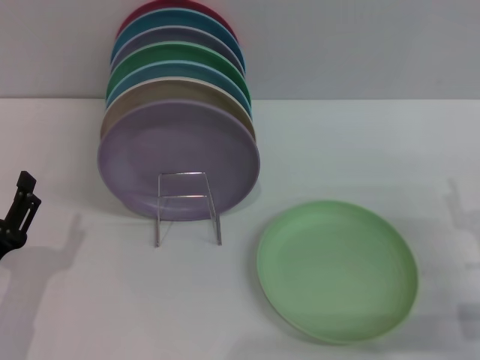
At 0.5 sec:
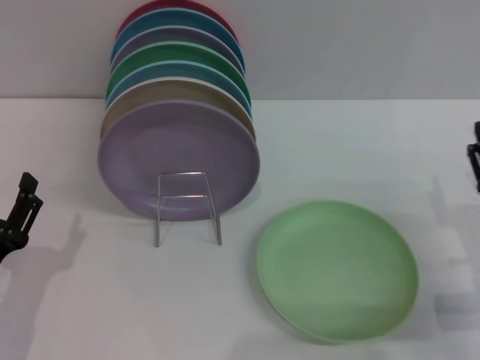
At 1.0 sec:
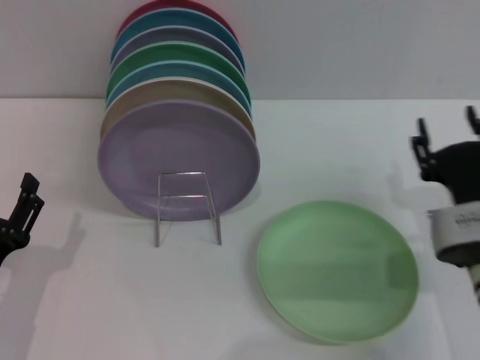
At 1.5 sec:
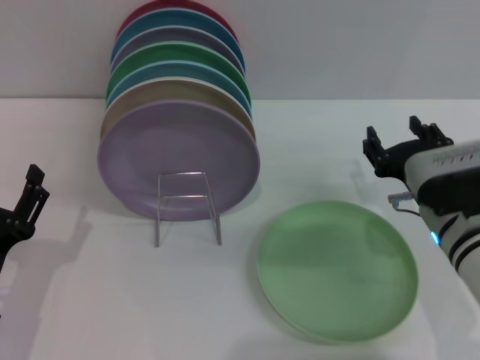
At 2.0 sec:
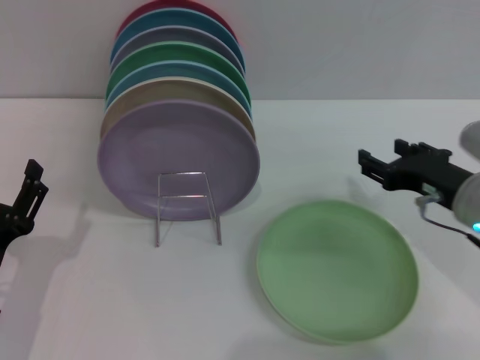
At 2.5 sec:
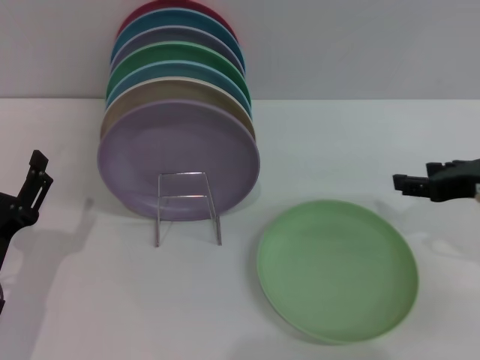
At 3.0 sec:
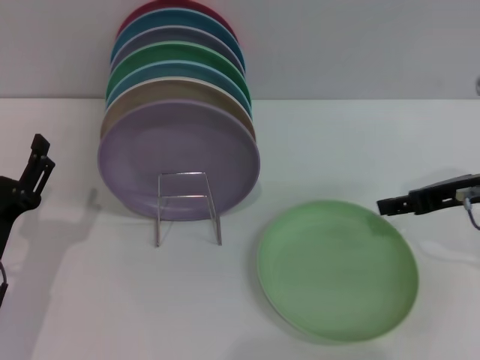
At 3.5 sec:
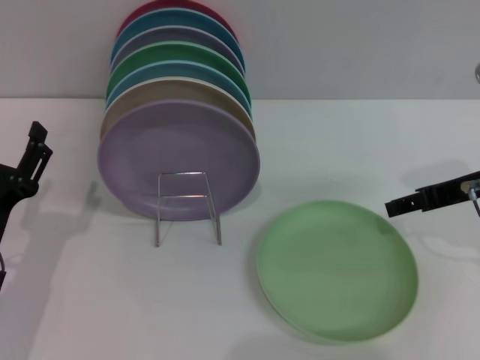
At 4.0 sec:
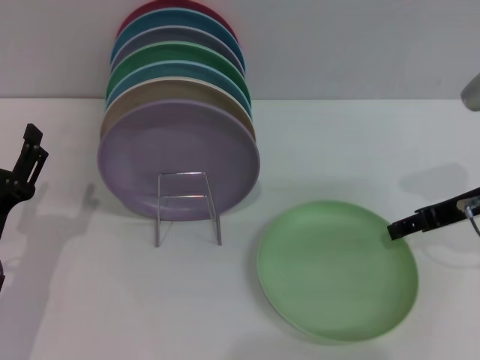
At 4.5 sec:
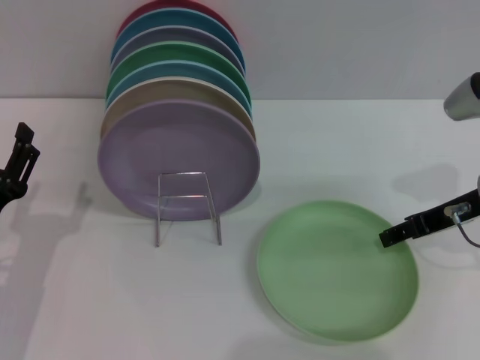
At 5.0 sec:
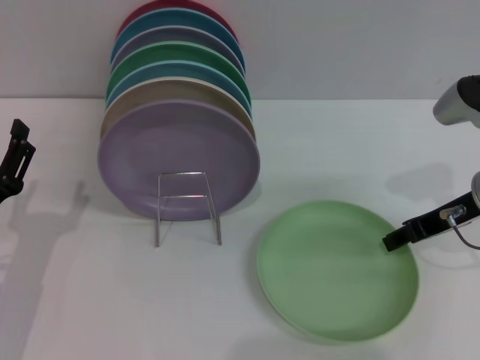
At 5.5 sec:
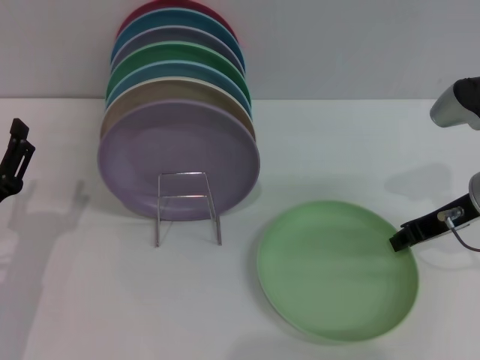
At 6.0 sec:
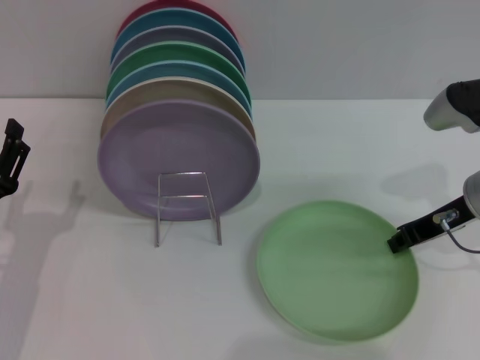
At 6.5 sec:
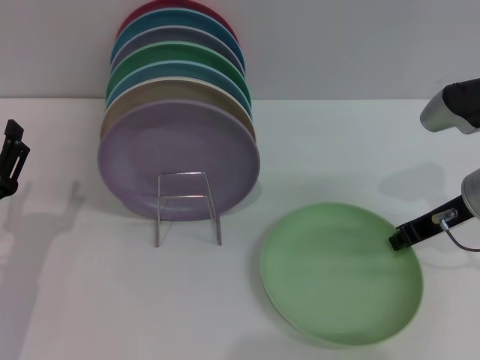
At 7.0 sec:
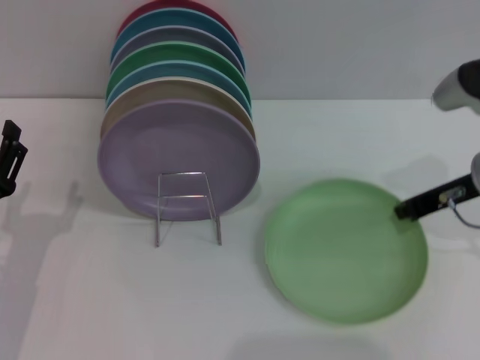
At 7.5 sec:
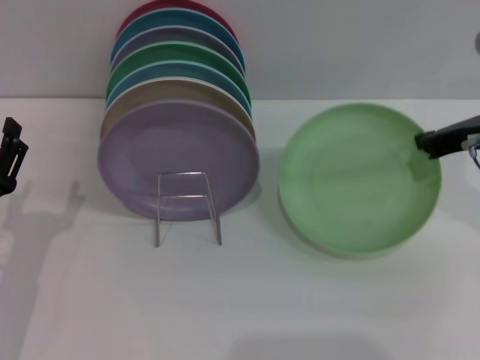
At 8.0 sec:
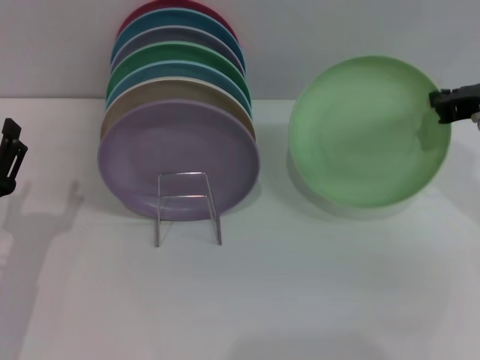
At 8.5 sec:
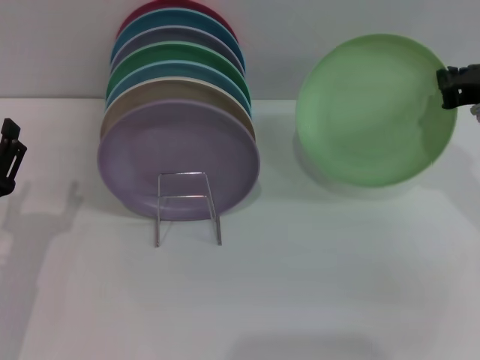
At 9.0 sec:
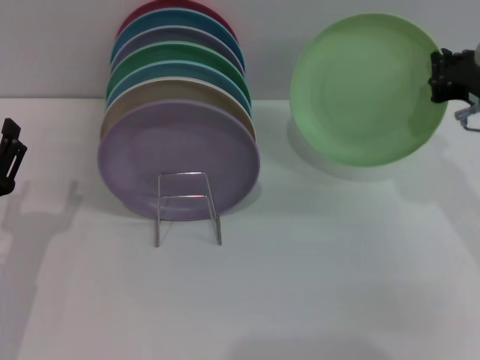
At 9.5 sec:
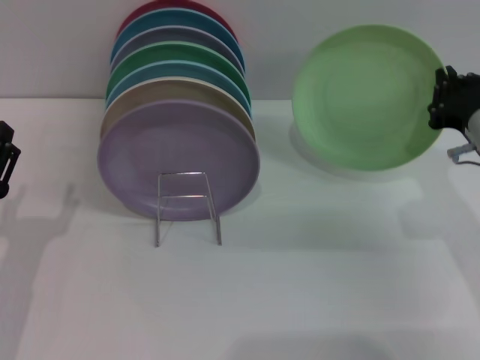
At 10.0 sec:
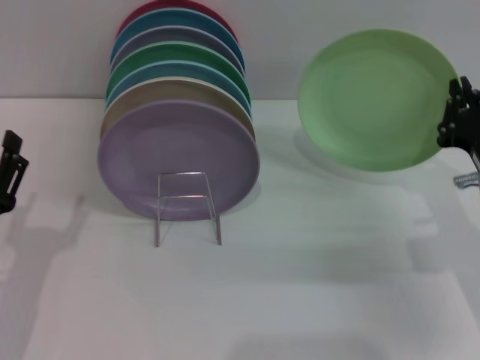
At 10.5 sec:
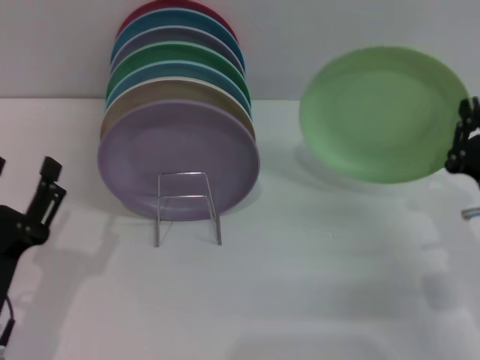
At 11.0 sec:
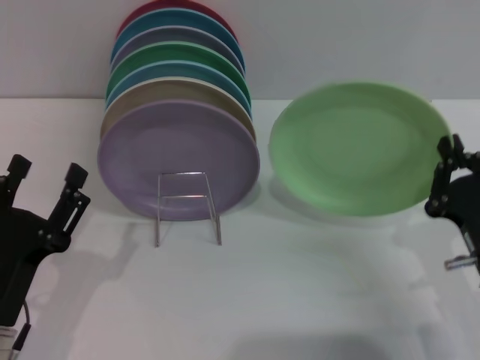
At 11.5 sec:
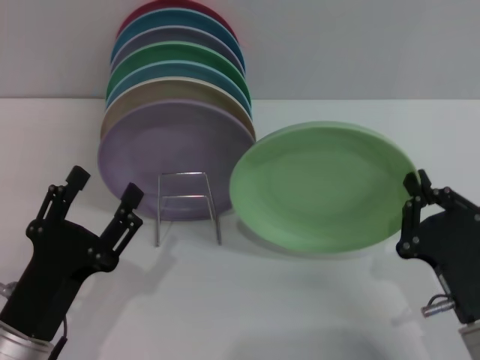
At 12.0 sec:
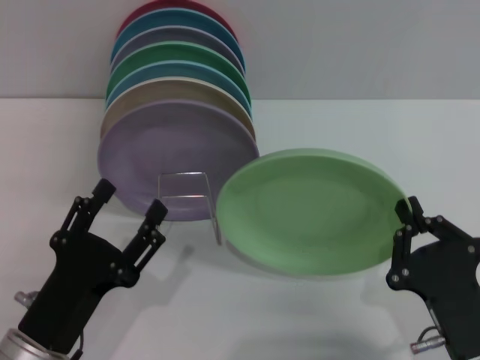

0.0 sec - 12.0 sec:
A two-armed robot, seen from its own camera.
Task of the whole recording: Grip the plate with one hand, pass it to the other, then set it on the shelf.
Step, 0.0 sec - 8.0 sec: Pick up the plate with the right gripper.
0.0 sec - 2.0 sec: The right gripper is displaced forward, upward and to the left by roughly 10 cm.
2.0 sec - 4.0 sec: The right gripper changes place by approximately 5 cm.
4.0 sec - 6.0 sec: The right gripper closes.
6.0 sec - 8.0 sec: The right gripper moves upward, approximately 5 cm.
8.0 sec - 10.0 sec: The right gripper shifts roughly 15 cm downward and backward.
10.0 sec - 12.0 sec: The left gripper goes about 5 cm to the right. The right gripper heads backward and to the left, covering about 15 cm.

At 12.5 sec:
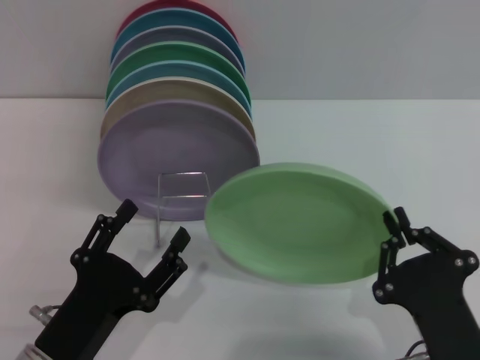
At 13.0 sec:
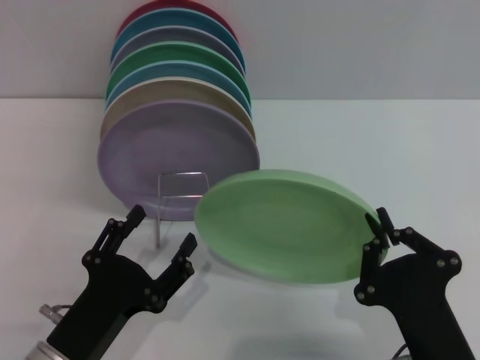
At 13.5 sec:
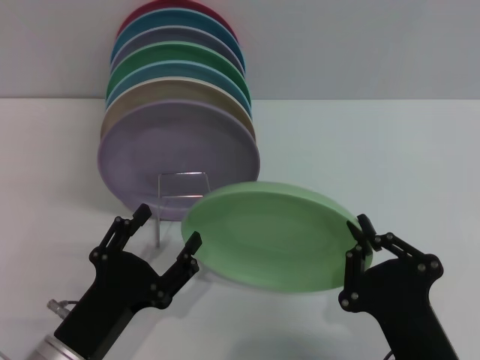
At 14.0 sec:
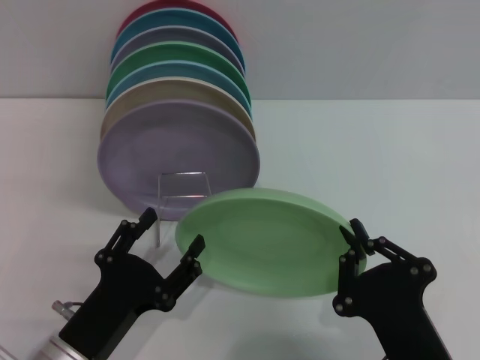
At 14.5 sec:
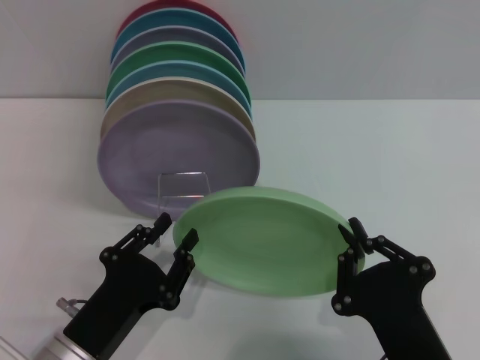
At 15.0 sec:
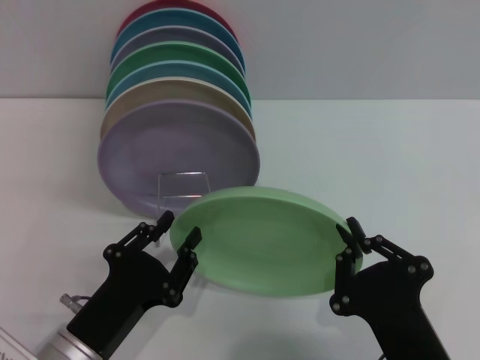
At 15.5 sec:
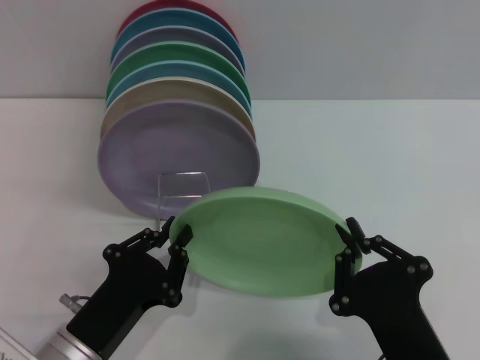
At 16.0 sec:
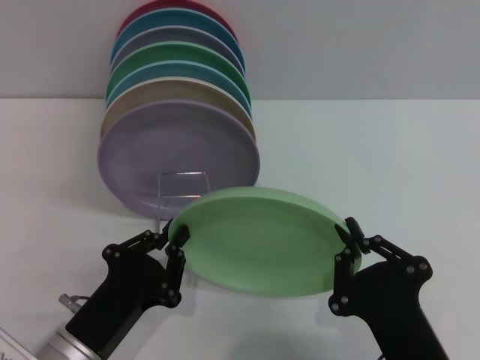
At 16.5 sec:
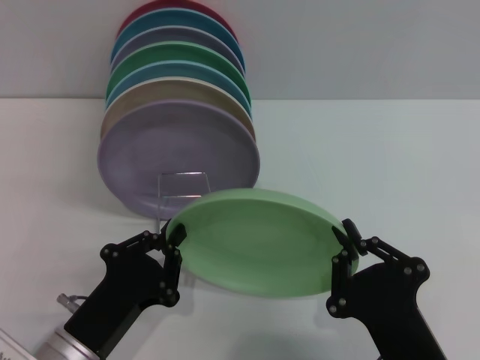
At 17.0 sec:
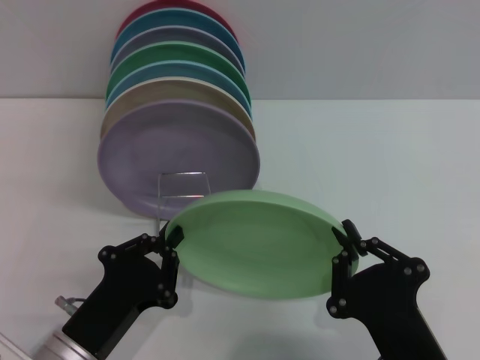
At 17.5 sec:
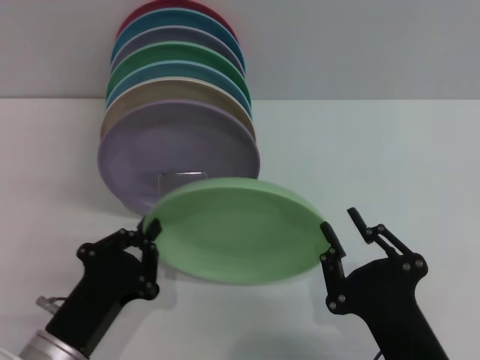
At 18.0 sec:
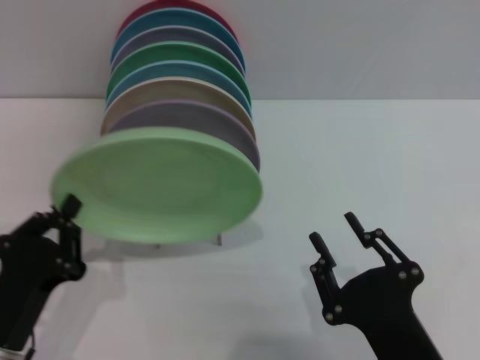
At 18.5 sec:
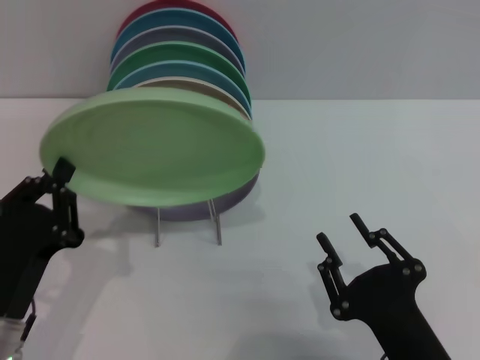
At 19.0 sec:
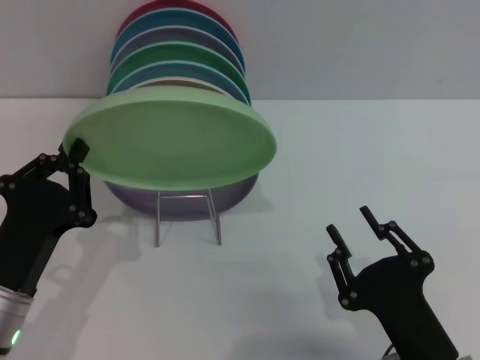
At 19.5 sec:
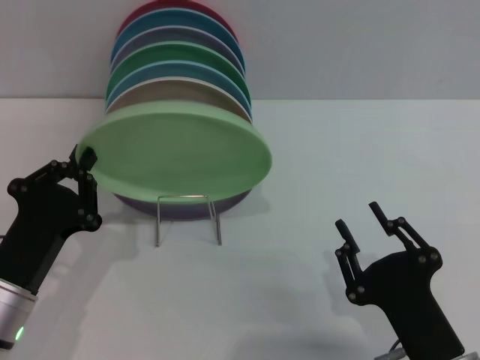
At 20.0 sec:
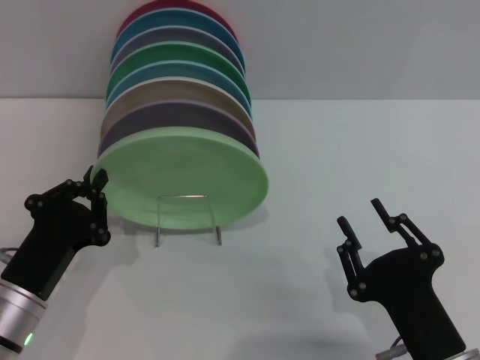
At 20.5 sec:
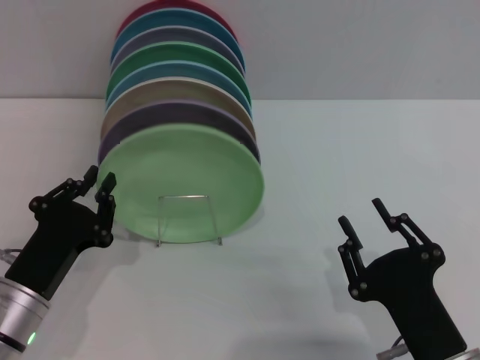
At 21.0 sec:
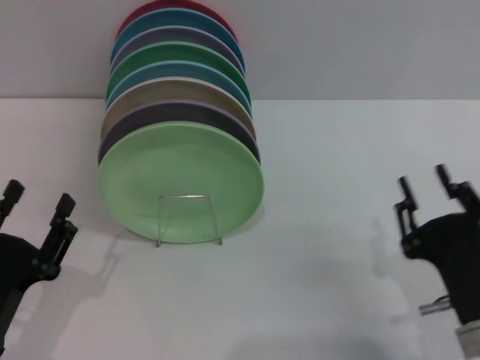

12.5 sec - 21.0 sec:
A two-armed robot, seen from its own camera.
Task of the whole recording: Grip the plate with one hand, pass it to the other, then set it on the shelf.
Step, 12.5 sec - 17.5 sec: Pass the plate from the right gripper to the left gripper.
Step, 18.0 sec - 20.5 sec: Place the plate on the shelf with the left gripper.
12.5 sec - 14.5 sec: The left gripper closes up.
14.5 sec - 16.5 sec: The left gripper closes up.
16.5 sec - 19.0 sec: The right gripper opens. Meanwhile the left gripper ends up roughly 5 cm from where it was.
19.0 sec - 21.0 sec: The left gripper shifts by roughly 5 cm, and opens its fingers.

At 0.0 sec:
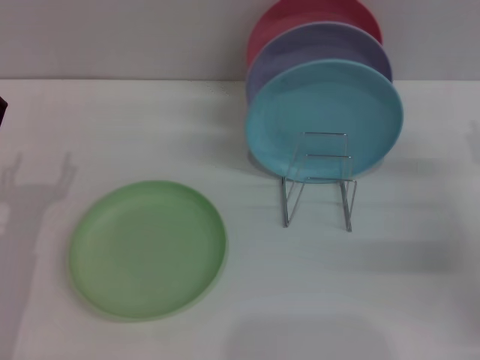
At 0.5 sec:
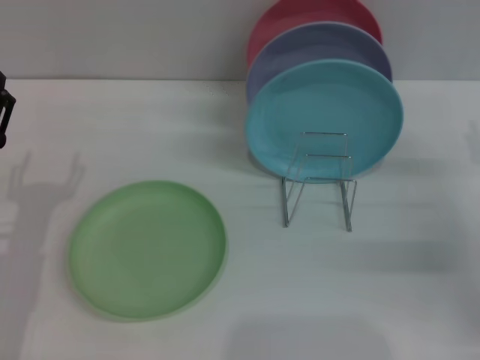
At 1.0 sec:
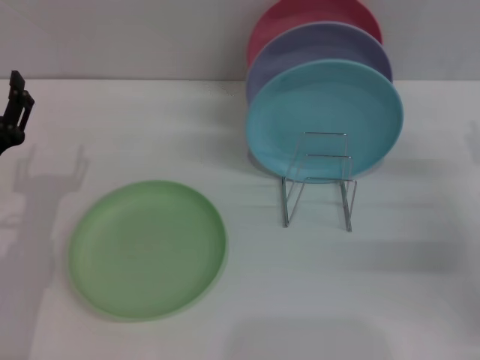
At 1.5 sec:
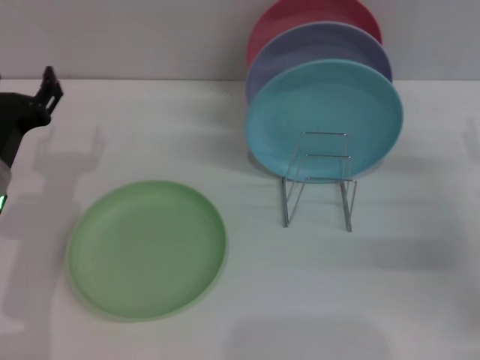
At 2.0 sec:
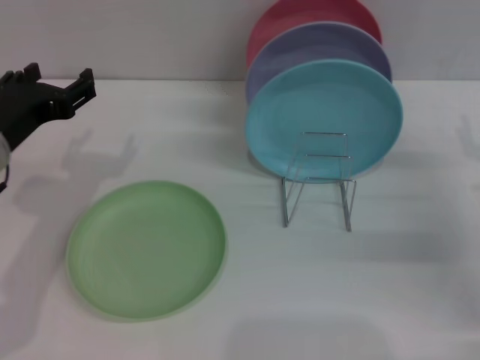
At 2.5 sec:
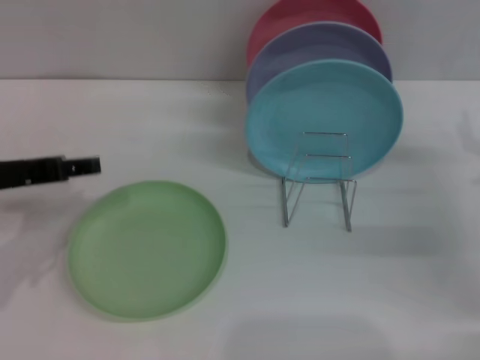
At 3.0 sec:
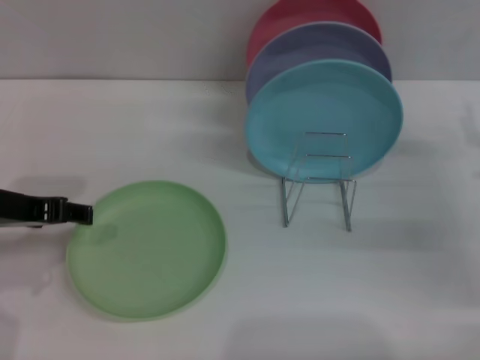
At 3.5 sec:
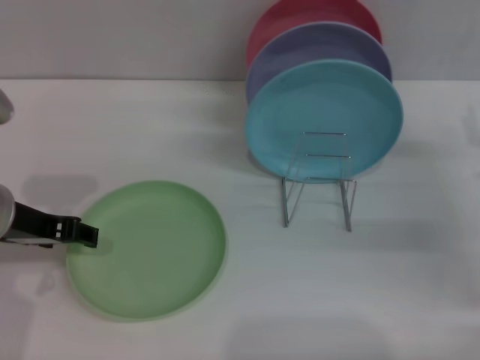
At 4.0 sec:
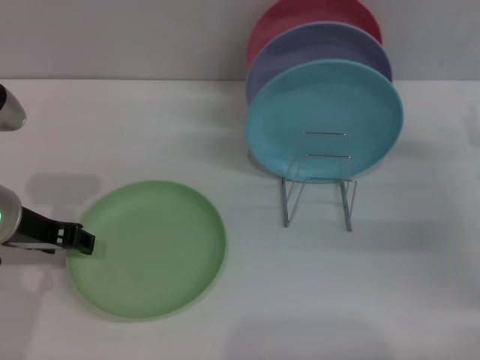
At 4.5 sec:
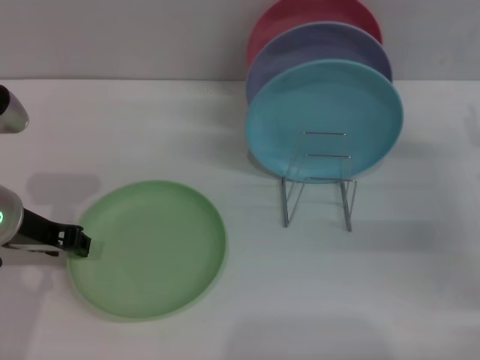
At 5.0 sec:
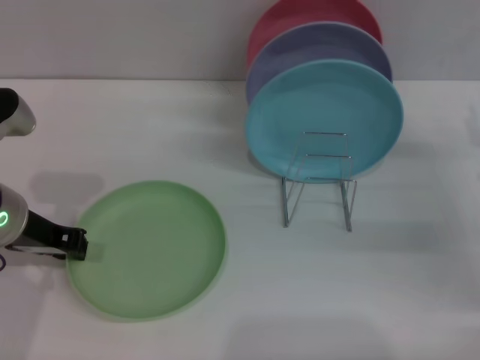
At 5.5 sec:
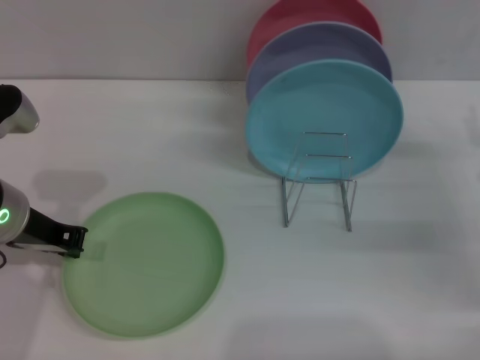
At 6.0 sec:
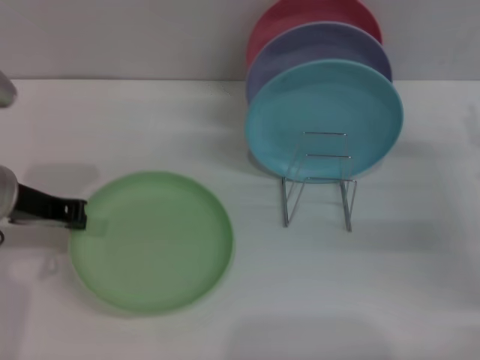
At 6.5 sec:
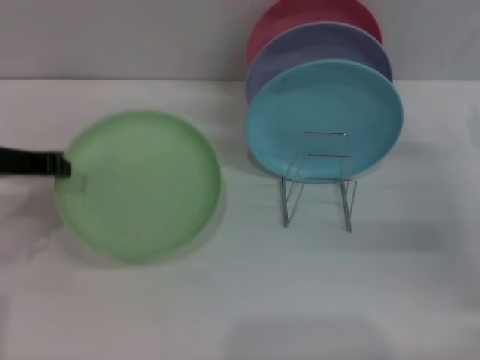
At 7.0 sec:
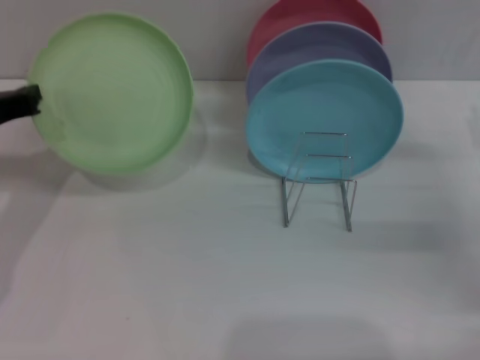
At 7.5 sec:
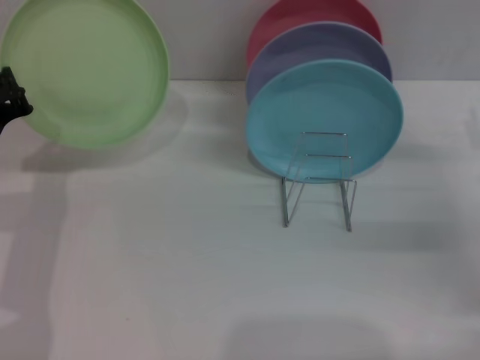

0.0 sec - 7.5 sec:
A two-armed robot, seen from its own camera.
Task of the whole recording: Grip the plate with one hand, pass it to the other, then set it on the shelf.
Step, 0.0 sec - 7.0 sec: Pick up the plate with the left gripper.
0.0 sec - 2.0 sec: The left gripper travels upward by roughly 10 cm.
4.0 sec - 5.5 sec: The left gripper closes.
